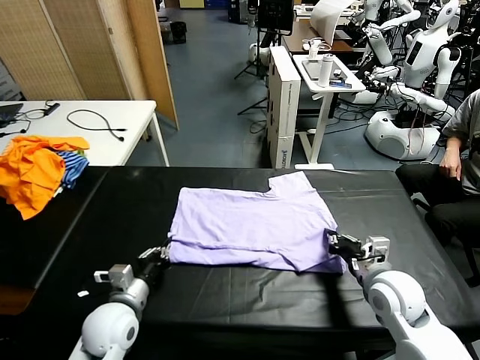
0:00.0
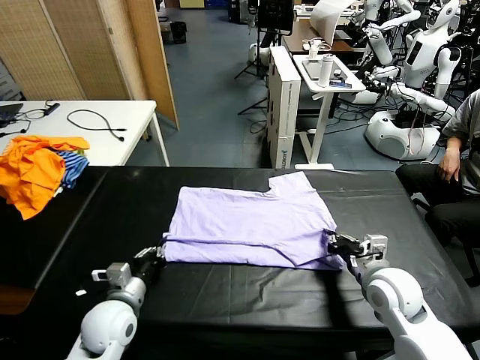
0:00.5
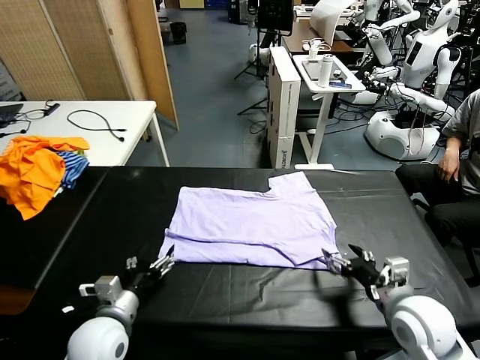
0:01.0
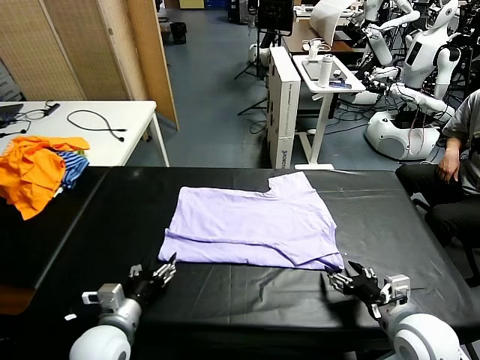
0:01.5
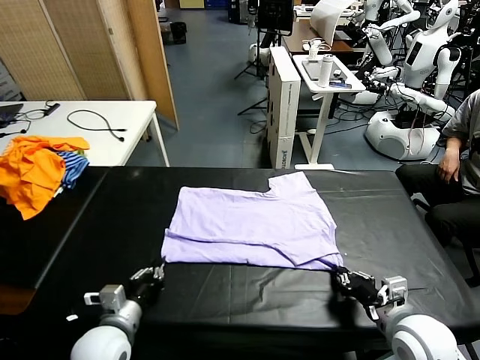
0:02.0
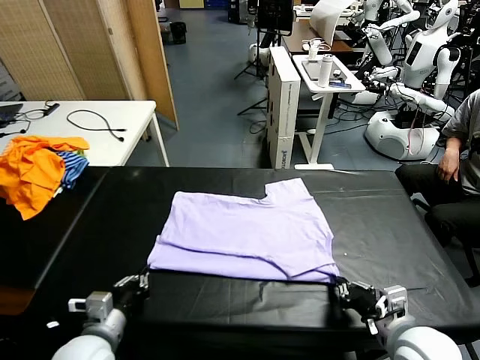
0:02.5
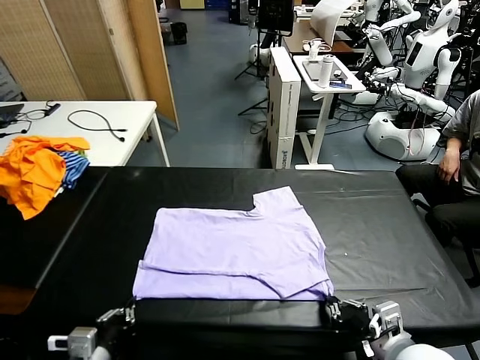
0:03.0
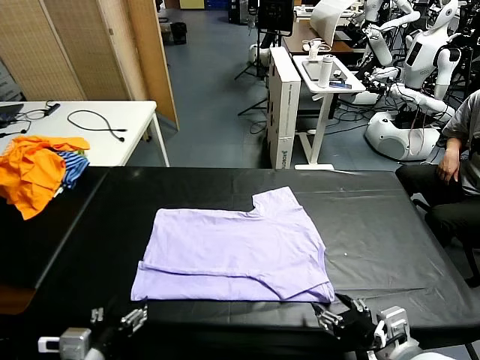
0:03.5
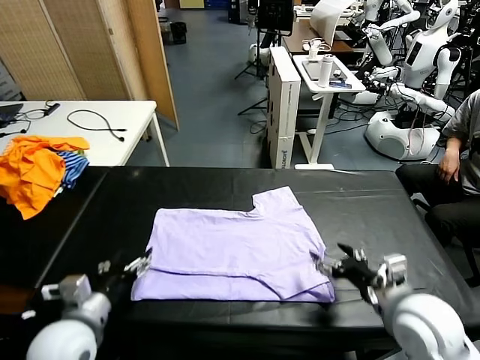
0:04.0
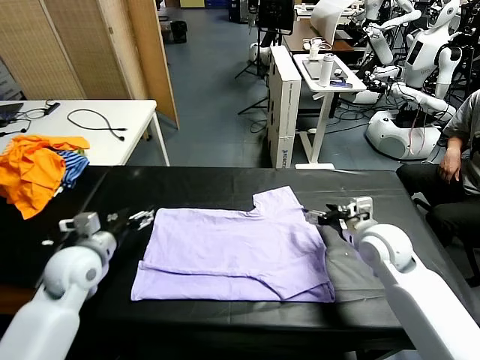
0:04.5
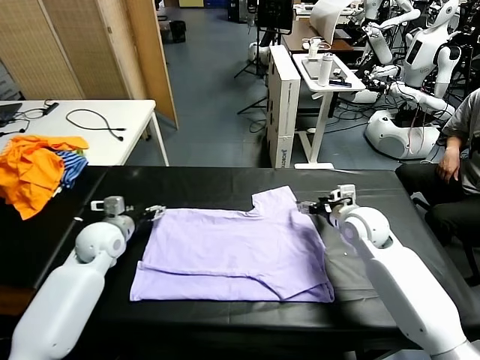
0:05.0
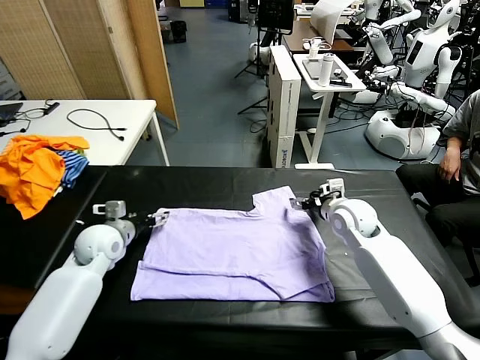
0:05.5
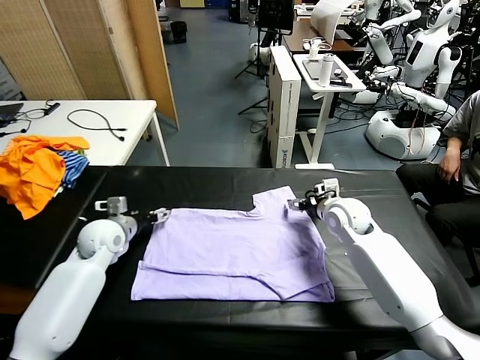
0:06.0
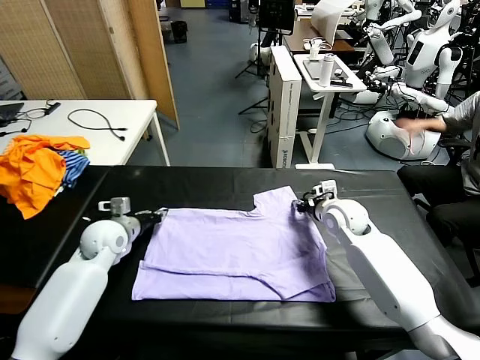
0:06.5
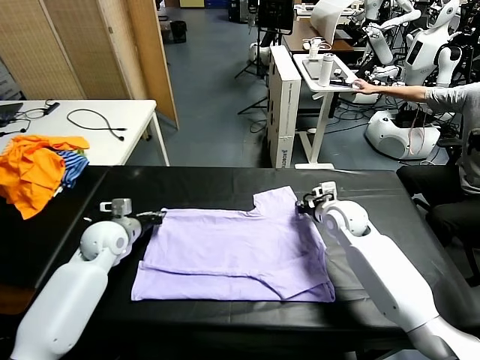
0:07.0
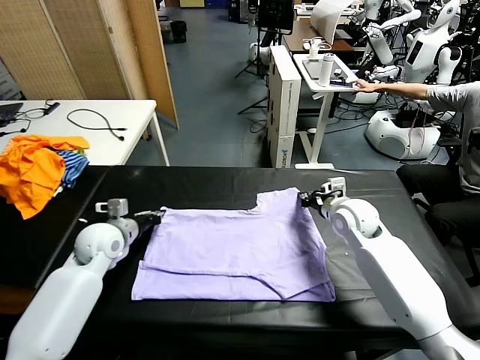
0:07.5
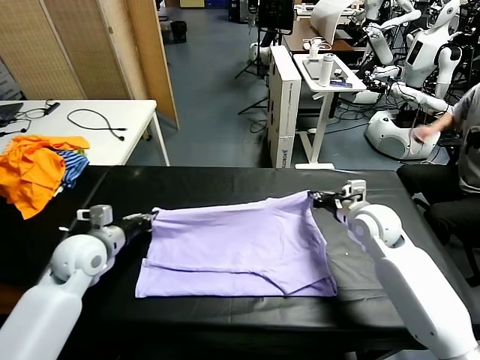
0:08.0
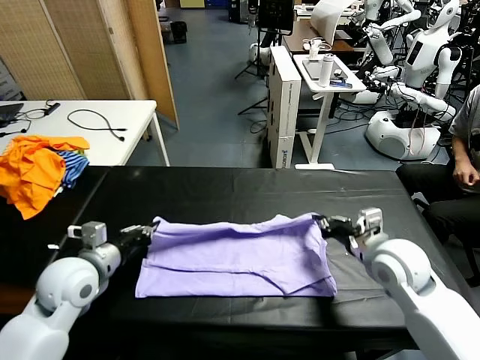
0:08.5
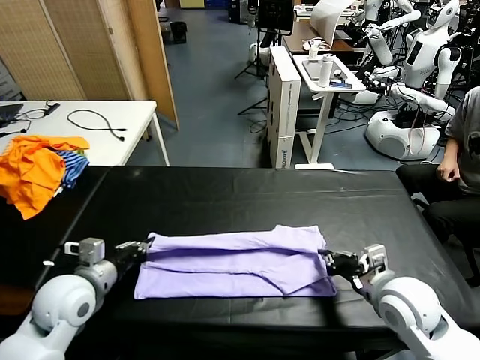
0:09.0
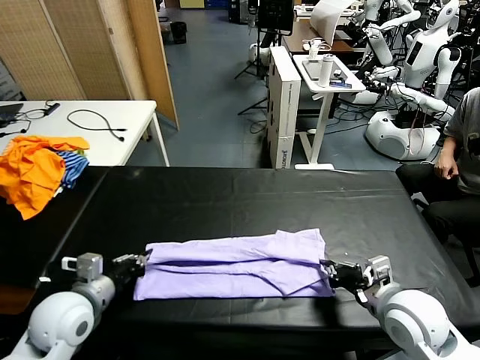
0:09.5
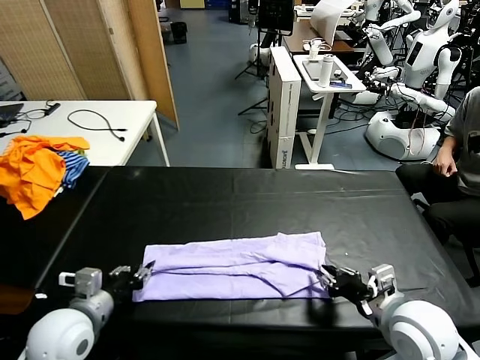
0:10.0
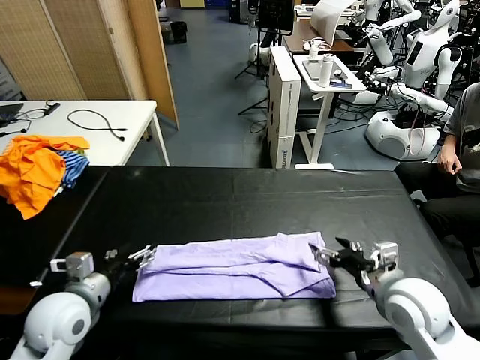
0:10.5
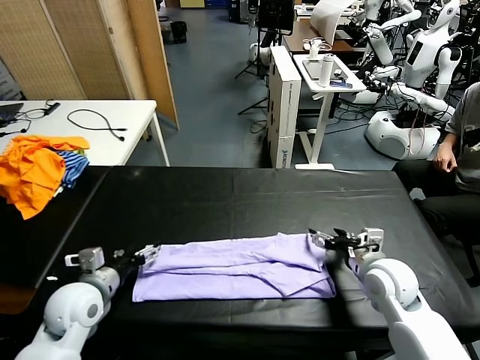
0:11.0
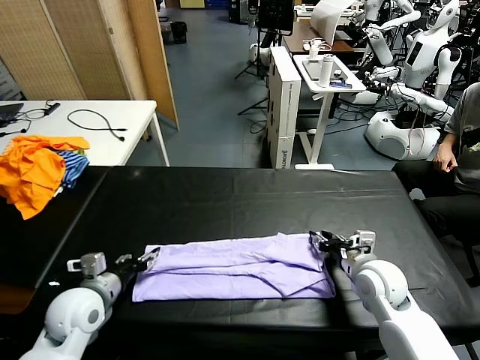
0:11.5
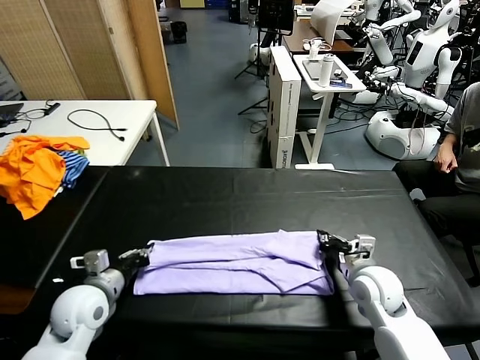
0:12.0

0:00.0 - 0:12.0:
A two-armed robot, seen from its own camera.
Task of the whole recording: fold and organize the clothes.
Step, 0:01.0 - 0:03.5: Drag the clothes downward with both gripper.
Step, 0:04.0 - 0:06.5: use both grippers simultaneously to clamp the upper edge of the clothing fabric.
0:00.0 - 0:02.0: The right gripper shifts approximately 10 cm backward, and opens and closes again; the left gripper opens and closes again.
0:02.0 - 0:04.0: Both grippers travel together upward, some 5 cm. The left gripper travels backward and back again, roughly 10 cm each way, and opens its fingers; the right gripper opens.
0:04.0 - 0:06.0: The grippers both shift forward by about 25 cm.
0:06.0 - 0:08.0: The grippers both shift backward by roughly 5 cm. The right gripper closes up. Meanwhile the left gripper closes.
0:08.0 - 0:10.0: Both grippers travel together backward, roughly 20 cm. The right gripper opens.
0:10.0 - 0:12.0: The right gripper is displaced forward and downward by roughly 15 cm, and closes up. Meanwhile the left gripper shifts by about 5 cm, and opens, then closes once more.

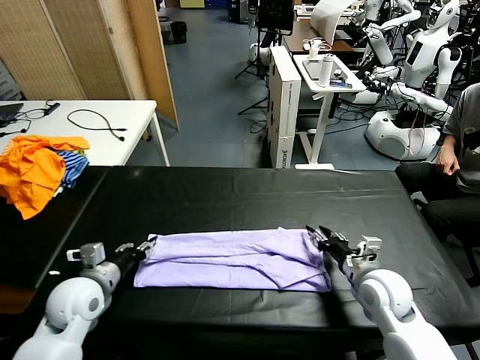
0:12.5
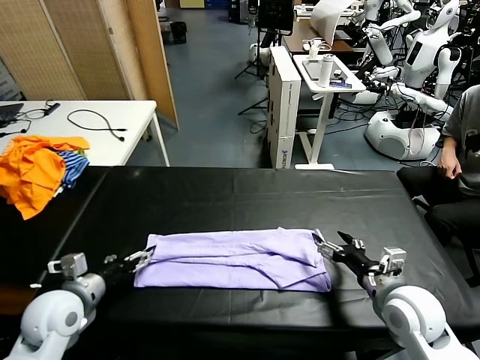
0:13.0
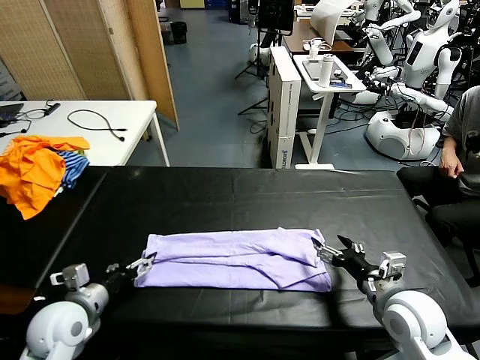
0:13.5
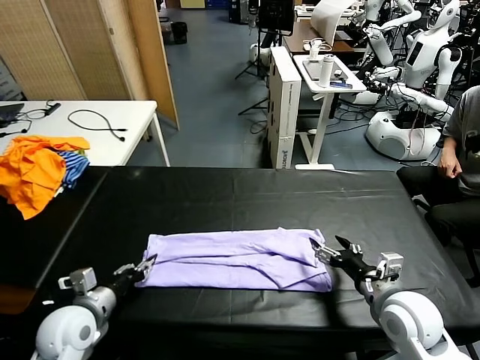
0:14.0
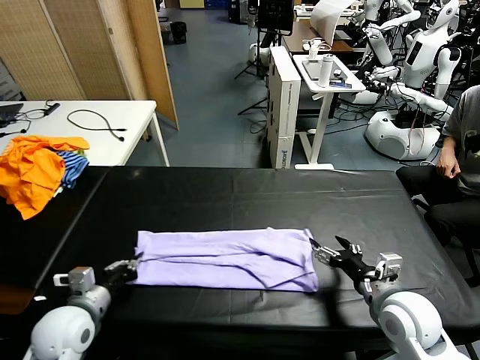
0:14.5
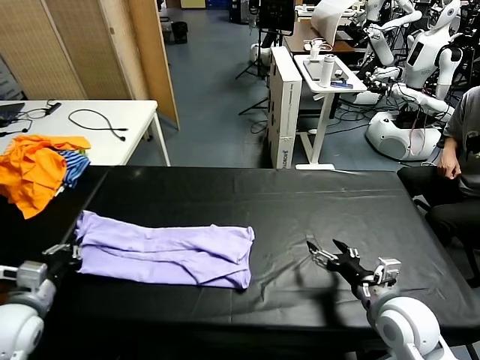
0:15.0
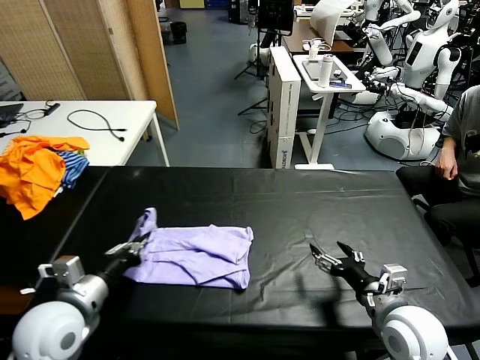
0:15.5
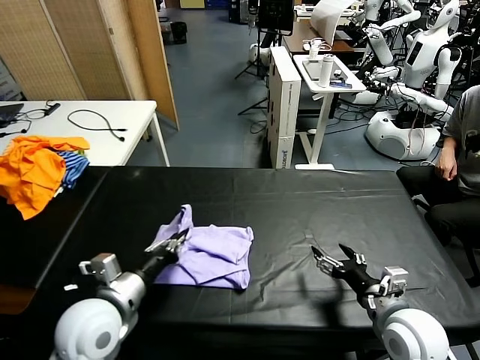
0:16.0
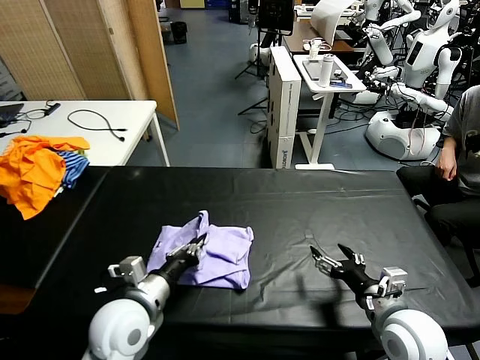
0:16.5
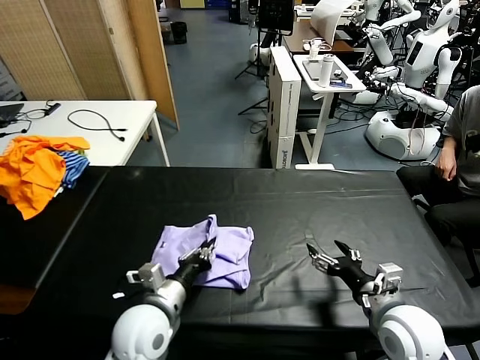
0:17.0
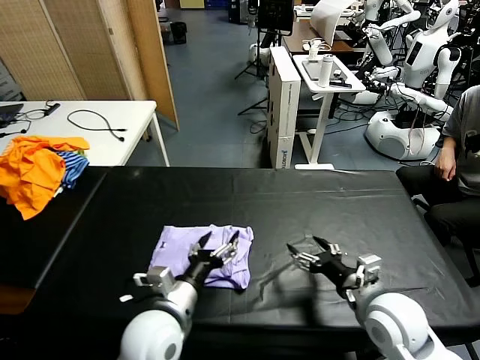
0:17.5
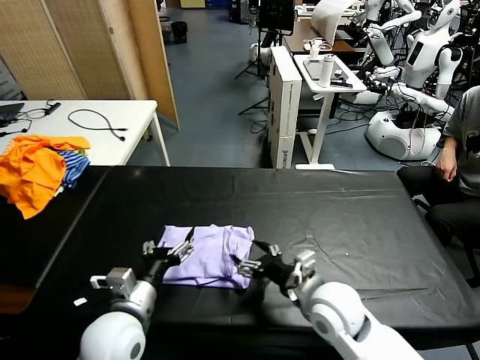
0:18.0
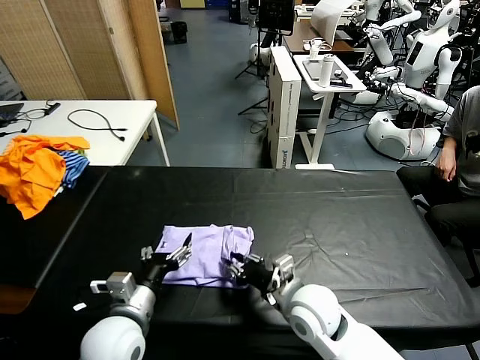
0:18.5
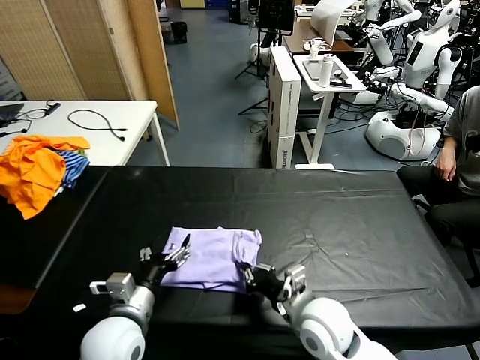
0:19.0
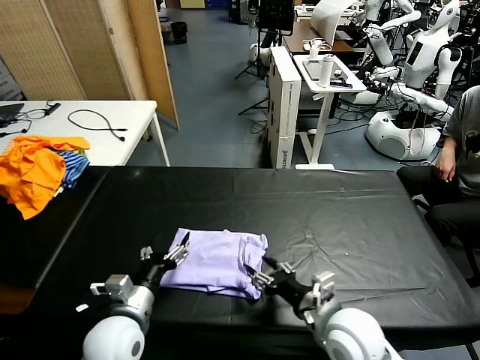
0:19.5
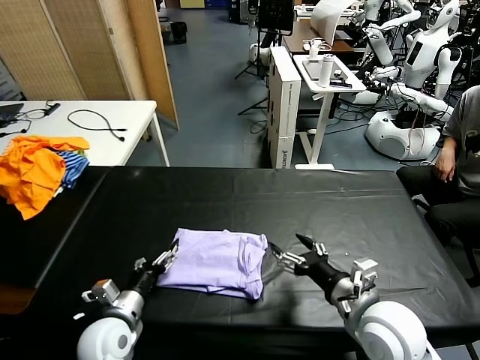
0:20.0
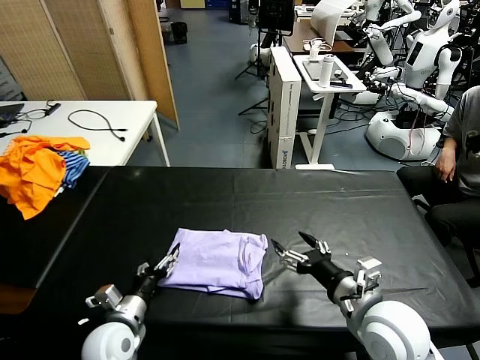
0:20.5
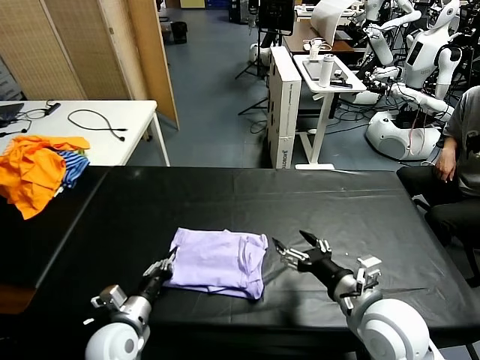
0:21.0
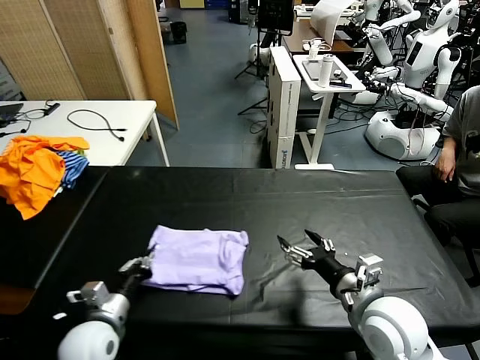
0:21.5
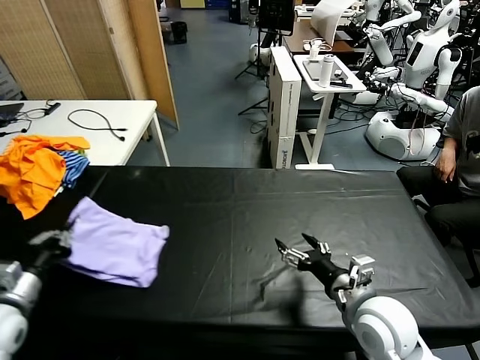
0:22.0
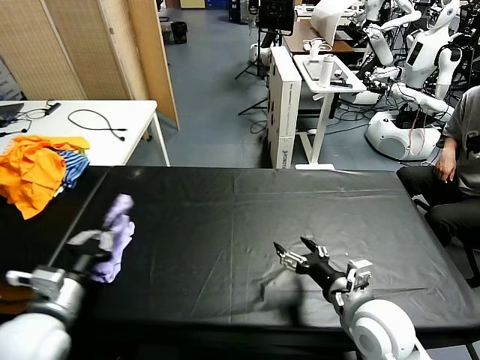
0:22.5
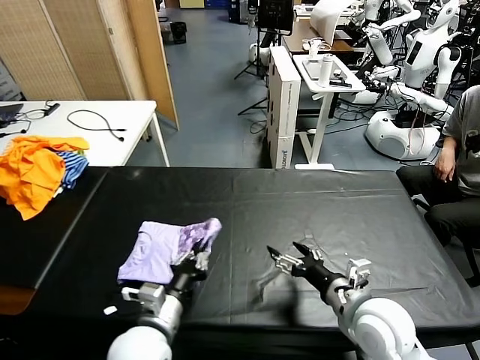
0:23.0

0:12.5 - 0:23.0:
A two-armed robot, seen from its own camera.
Task of the whole recording: fold and organize the clothes.
Step, 0:13.0 - 0:14.0: use the left gripper to clamp the left edge of the fabric.
Step, 0:14.5 - 0:19.0: use the left gripper to drag the left edge of the fabric to the left and folds it over the right edge.
0:12.5 - 0:14.5: Both grippers travel together backward, some 5 cm. The right gripper opens. Meanwhile the left gripper opens, then closes once more.
0:14.5 - 0:16.5: The left gripper goes some 10 cm to the right.
0:16.5 - 0:19.0: The right gripper shifts some 15 cm to the left, and closes its fingers. Meanwhile the left gripper opens.
0:19.0 - 0:21.0: The right gripper moves to the right and upward, roughly 10 cm, and opens; the left gripper goes approximately 10 cm downward, and closes its fingers.
0:21.0 - 0:23.0: The left gripper heads upward, covering roughly 10 cm, and reaches about 15 cm to the left, then returns.

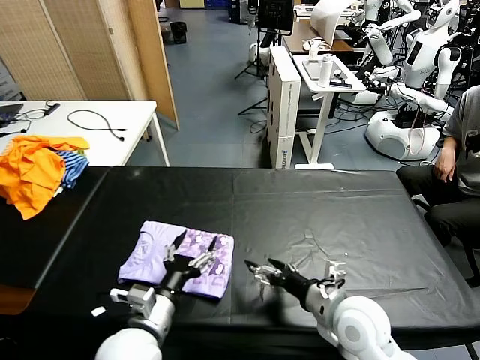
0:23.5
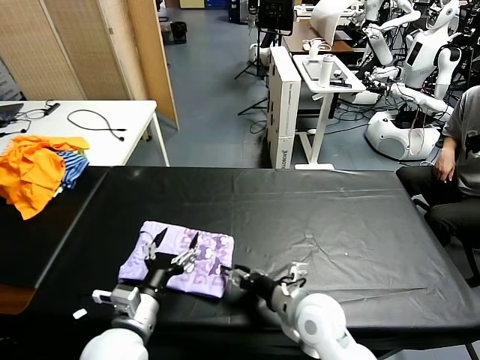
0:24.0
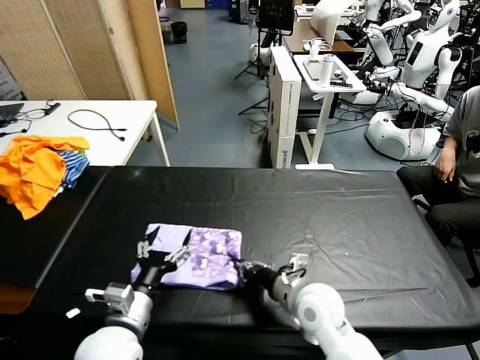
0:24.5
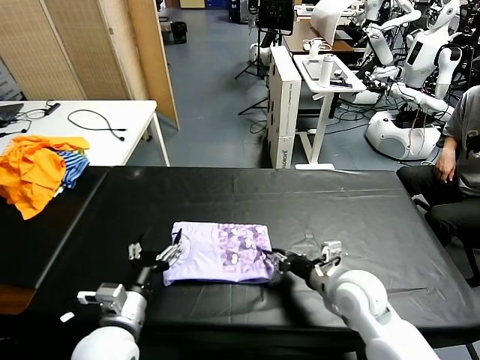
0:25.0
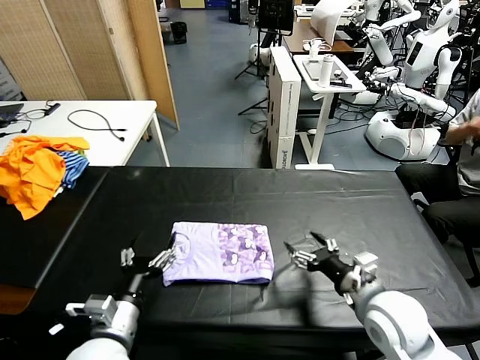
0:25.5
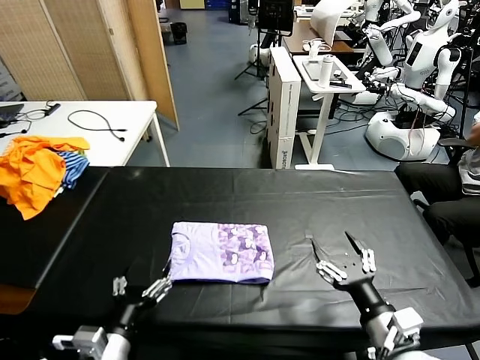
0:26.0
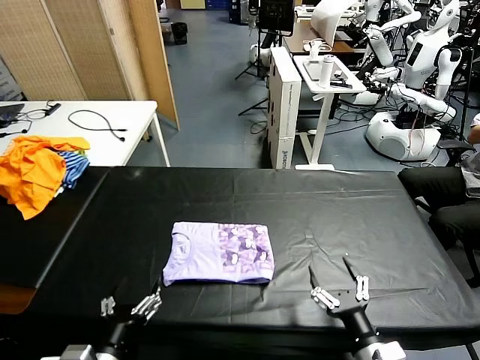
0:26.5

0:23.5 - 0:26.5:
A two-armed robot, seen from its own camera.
Task of the whole recording: fold and organize the clothes.
Step, 0:24.0 - 0:25.0: Drag the clothes to the center of the table.
0:23.5 - 0:25.0: The right gripper moves forward, some 5 cm, moves about 5 cm to the left and comes back, and closes up.
0:25.0 - 0:26.5: The left gripper is displaced backward by approximately 10 cm. The right gripper moves backward, roughly 20 cm, and opens.
